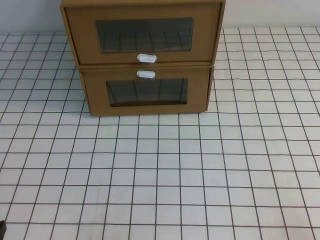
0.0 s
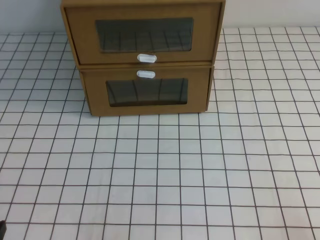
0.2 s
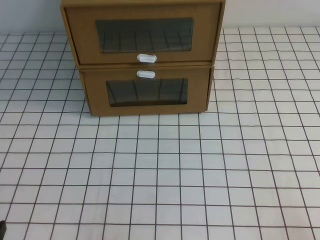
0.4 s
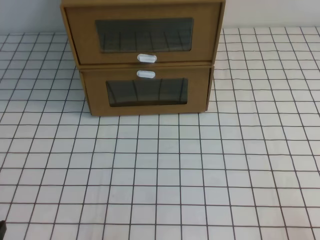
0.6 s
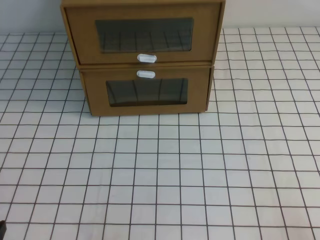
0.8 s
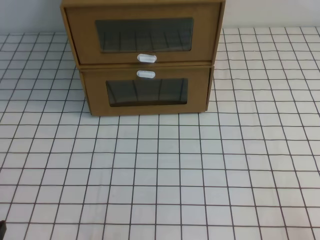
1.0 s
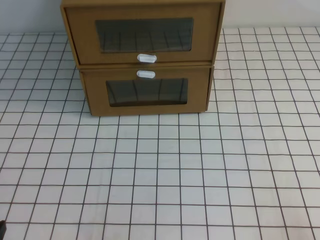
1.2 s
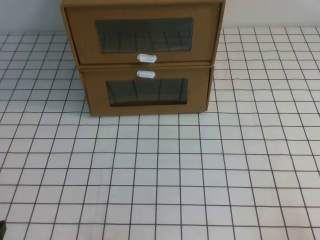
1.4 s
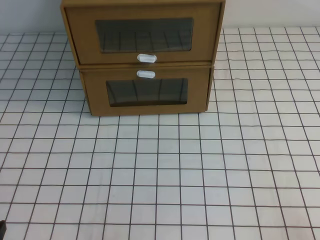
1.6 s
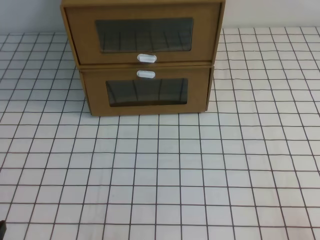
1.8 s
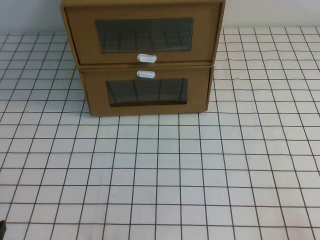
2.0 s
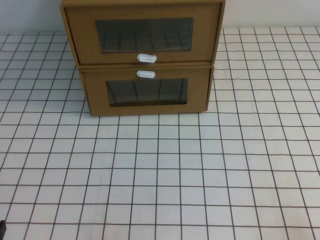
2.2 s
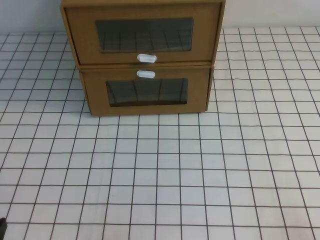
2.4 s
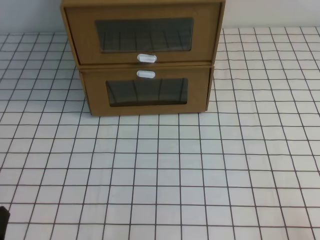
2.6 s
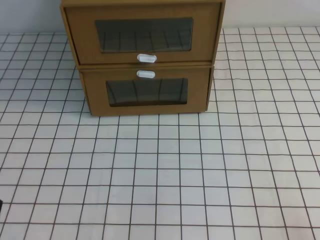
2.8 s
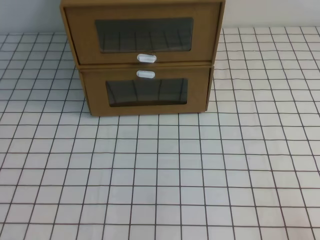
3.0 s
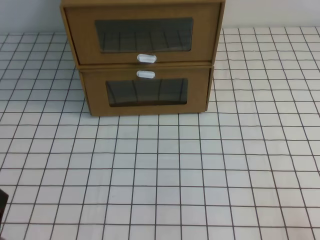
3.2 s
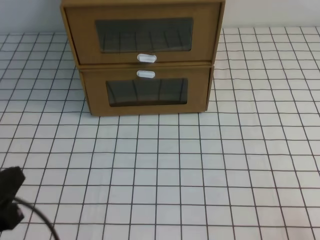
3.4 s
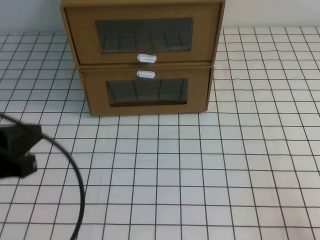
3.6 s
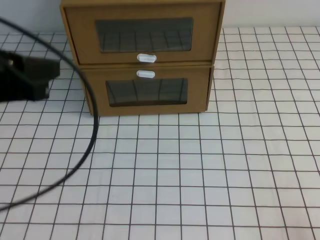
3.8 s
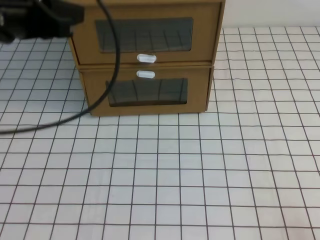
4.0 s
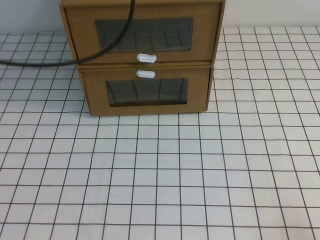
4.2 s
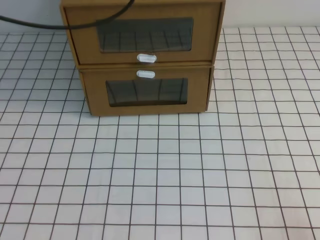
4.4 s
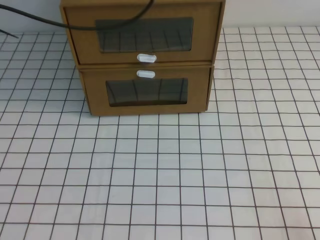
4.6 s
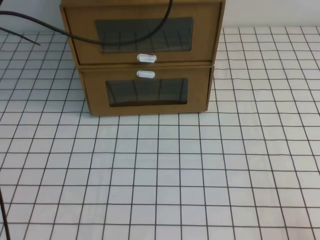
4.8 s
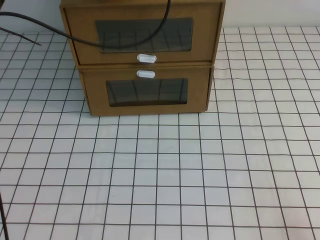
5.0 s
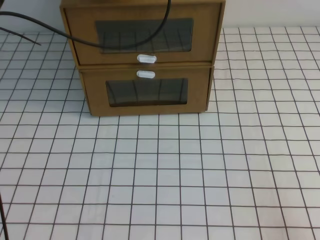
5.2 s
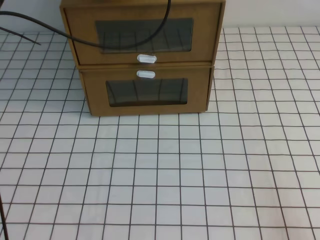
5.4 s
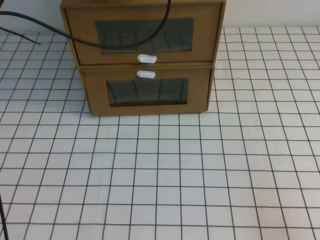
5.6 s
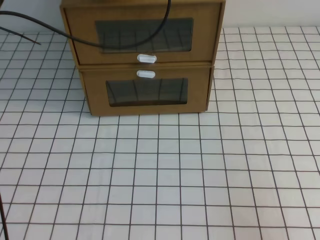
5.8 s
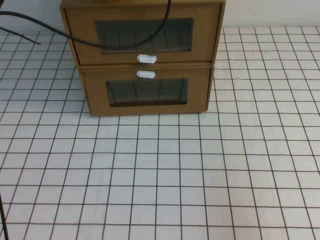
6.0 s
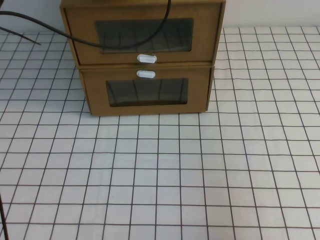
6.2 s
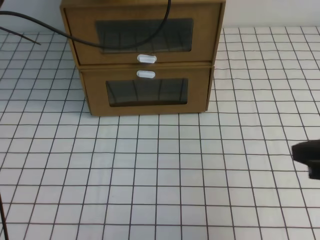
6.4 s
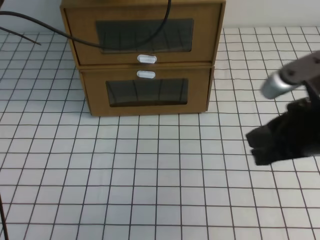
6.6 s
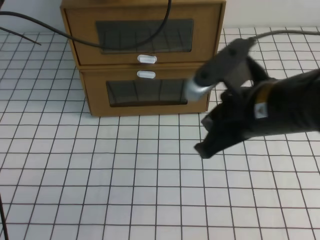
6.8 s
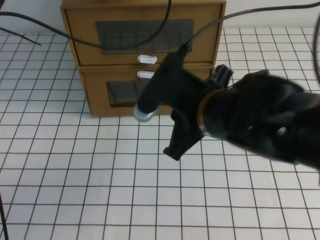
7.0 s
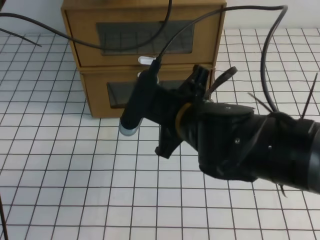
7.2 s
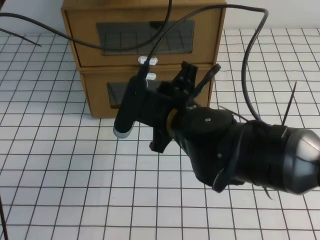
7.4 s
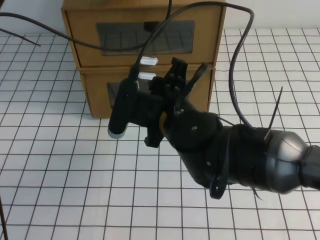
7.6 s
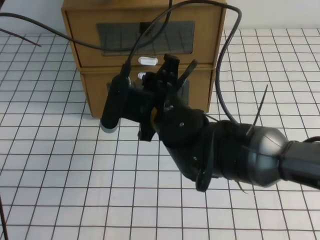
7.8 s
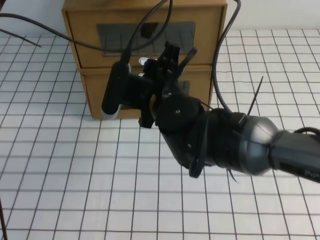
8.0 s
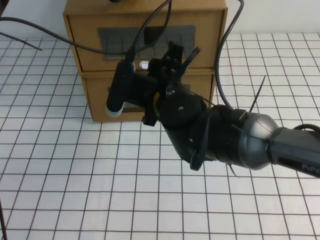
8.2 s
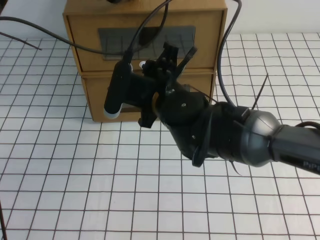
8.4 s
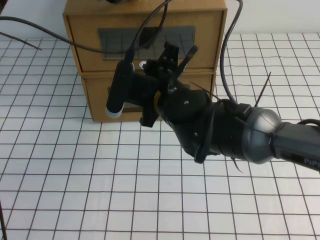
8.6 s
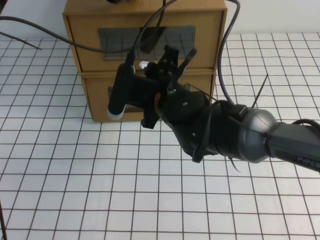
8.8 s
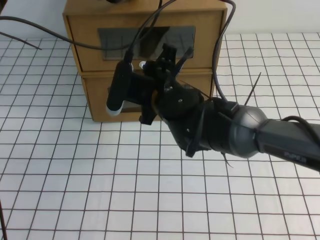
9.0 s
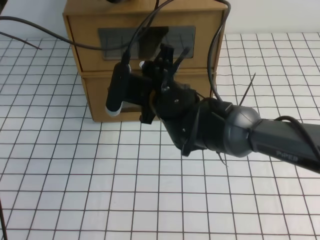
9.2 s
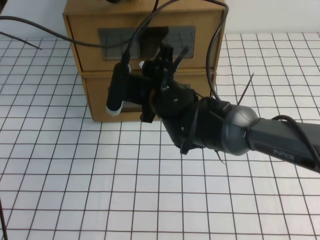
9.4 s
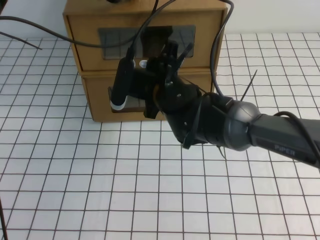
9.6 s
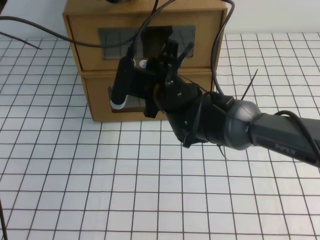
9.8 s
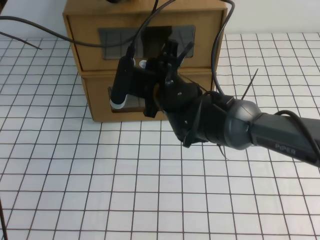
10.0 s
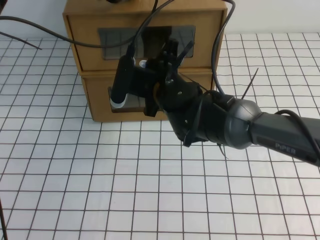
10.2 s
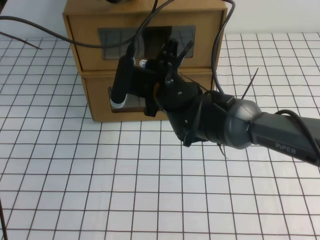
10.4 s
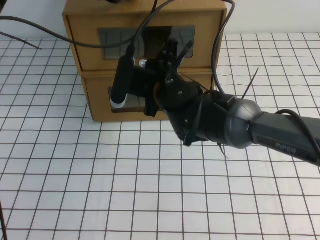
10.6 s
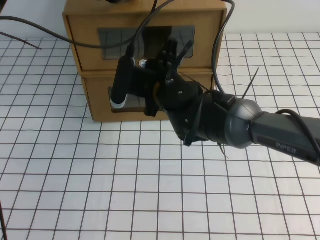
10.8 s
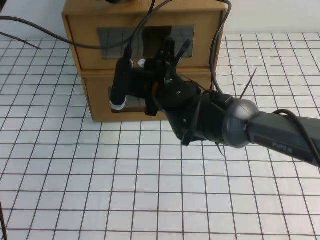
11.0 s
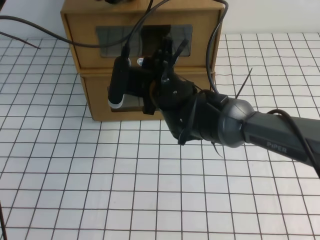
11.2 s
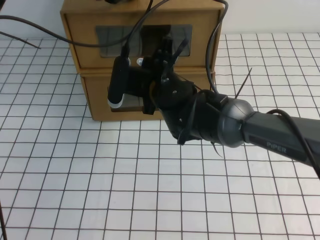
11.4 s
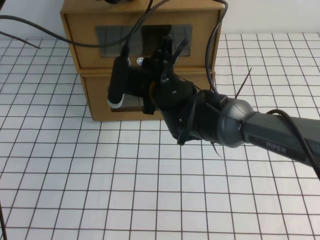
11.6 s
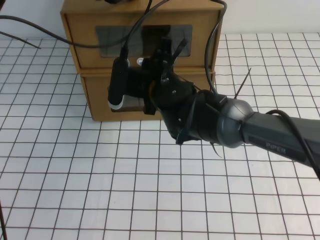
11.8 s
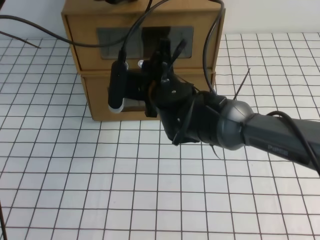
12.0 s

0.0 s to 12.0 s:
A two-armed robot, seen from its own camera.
Task of the whole recording: open the shoebox on the white tablecloth.
0.0 to 1.6 s: Both grippers stay put.
4.4 to 6.0 s: The left gripper travels forward and downward by approximately 10 cm; the right gripper heads upward, covering approximately 10 cm.
6.0 to 7.6 s: The right gripper goes roughly 30 cm to the left and forward, and opens its fingers.
7.6 to 9.0 s: The right gripper travels forward by approximately 5 cm.
9.0 to 10.4 s: The right gripper closes.
10.4 to 12.0 s: There are only small adjustments of the grippers.

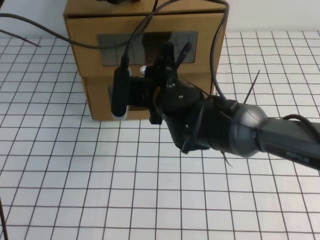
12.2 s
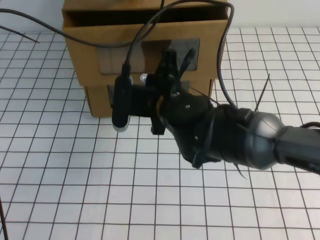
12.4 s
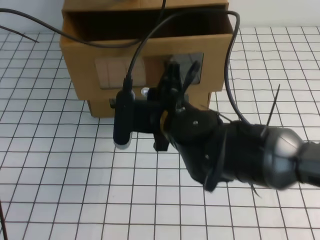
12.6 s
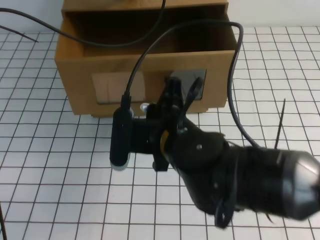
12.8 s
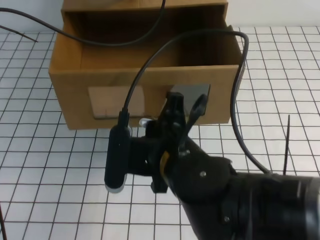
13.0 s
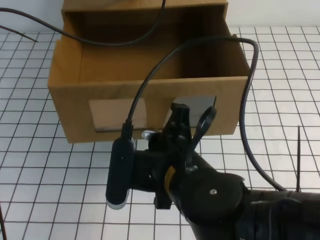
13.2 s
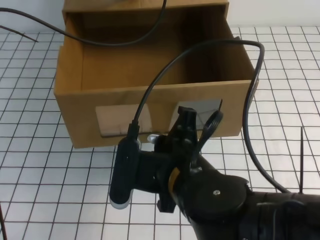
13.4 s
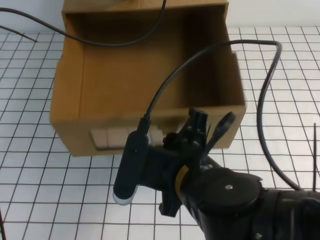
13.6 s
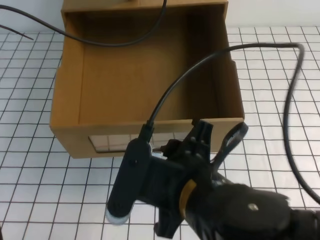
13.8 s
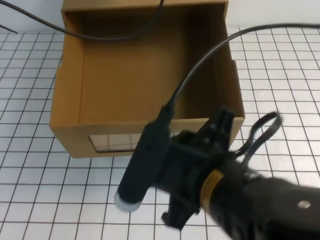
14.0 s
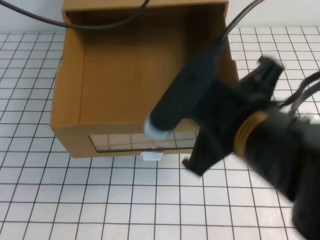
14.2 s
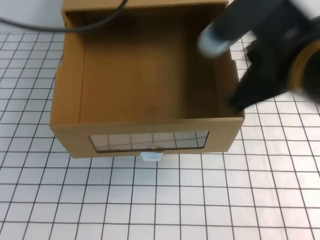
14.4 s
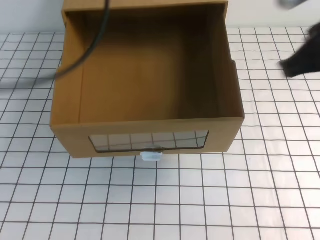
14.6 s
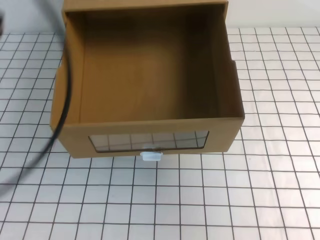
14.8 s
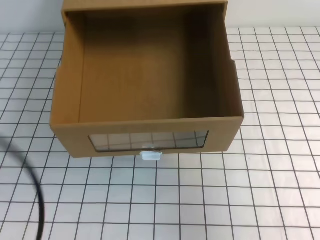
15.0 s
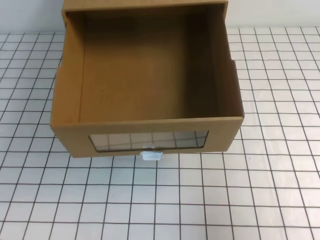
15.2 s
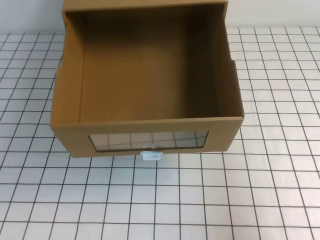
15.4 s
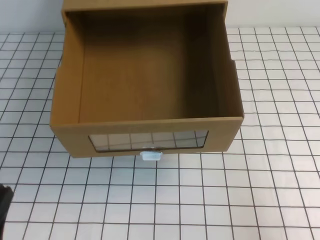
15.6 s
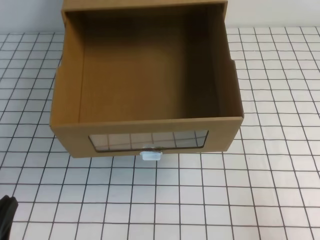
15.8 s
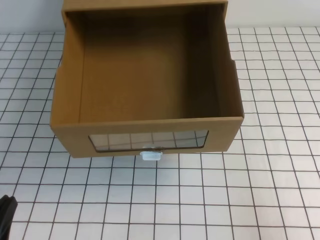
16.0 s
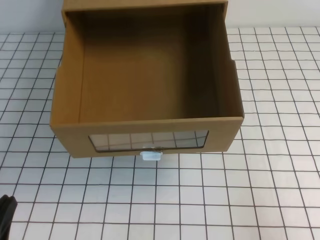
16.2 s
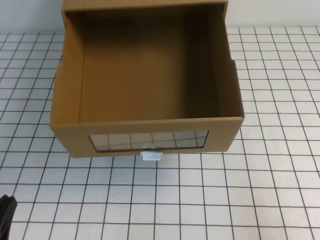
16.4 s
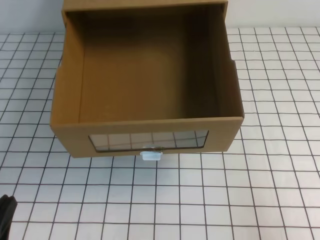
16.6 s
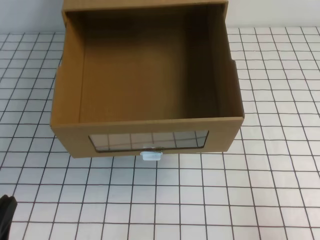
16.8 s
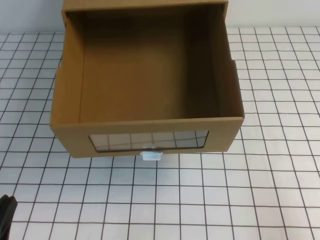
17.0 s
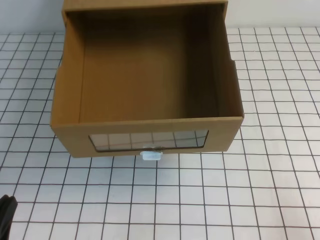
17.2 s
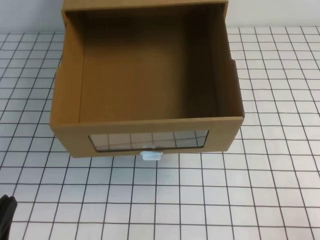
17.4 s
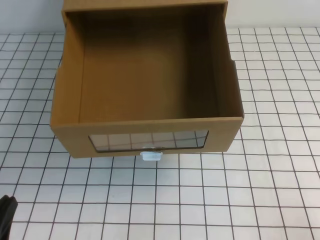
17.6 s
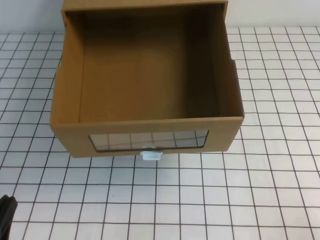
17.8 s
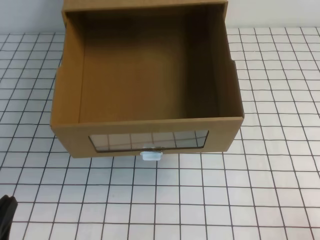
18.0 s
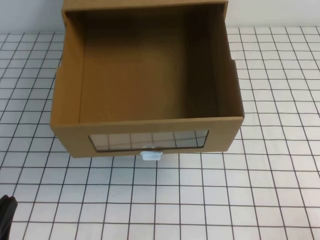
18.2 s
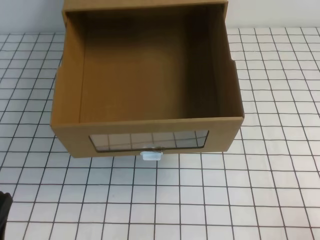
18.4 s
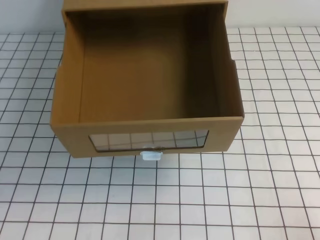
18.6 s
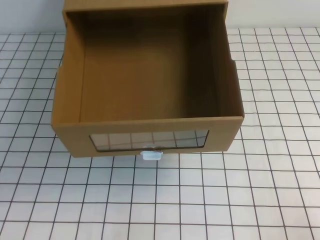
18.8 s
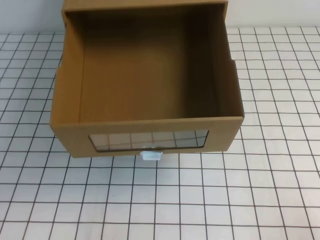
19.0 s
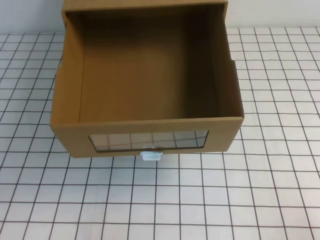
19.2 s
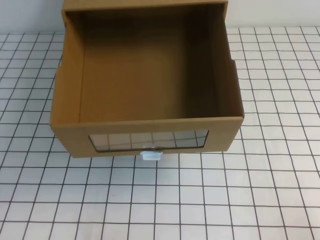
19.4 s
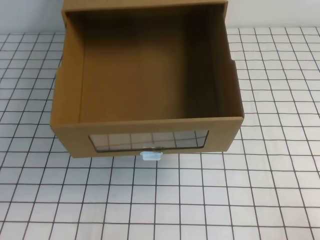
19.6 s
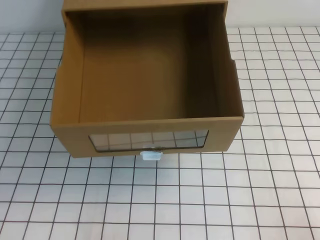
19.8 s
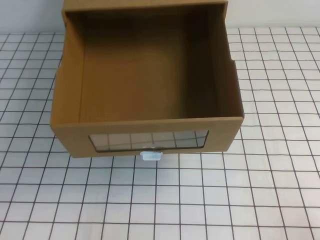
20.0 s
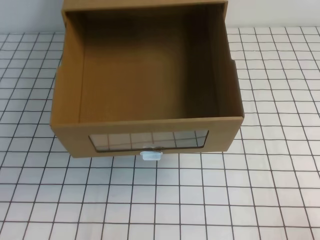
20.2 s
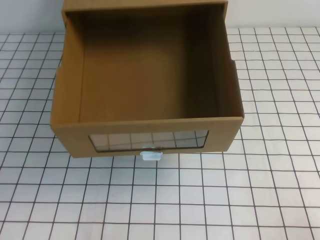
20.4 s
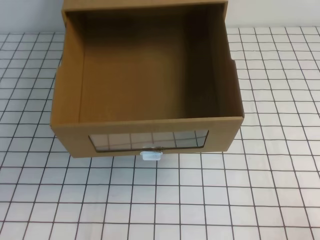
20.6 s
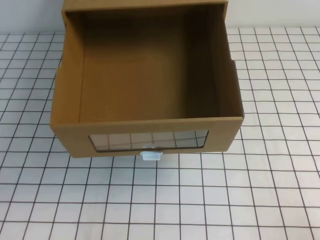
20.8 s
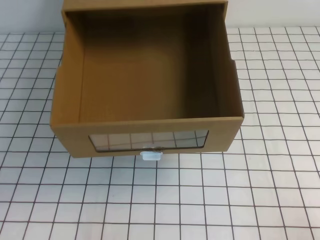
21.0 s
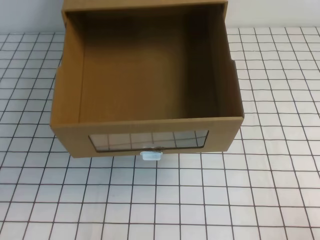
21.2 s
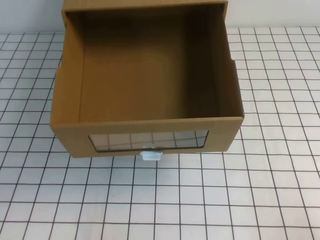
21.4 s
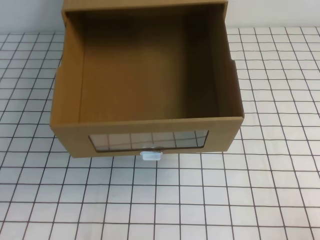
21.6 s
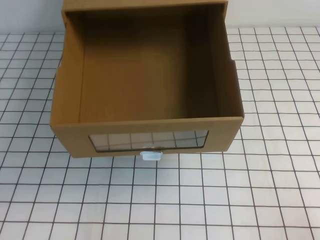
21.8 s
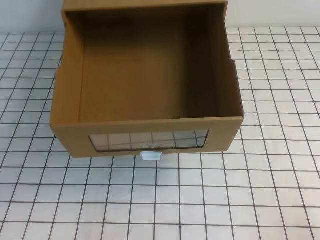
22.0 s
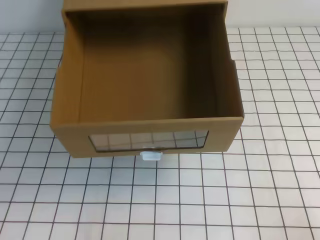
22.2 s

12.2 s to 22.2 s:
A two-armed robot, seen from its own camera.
Task of the whole recording: open the shoebox on the white tablecloth.
Step, 12.2 to 22.2 s: Open the shoe box.
12.2 to 13.6 s: The right gripper goes roughly 15 cm backward, and opens.
13.6 to 15.0 s: The left gripper moves backward, some 30 cm. The right gripper travels to the right and upward by roughly 25 cm, and closes up.
15.0 to 16.4 s: The right gripper is displaced backward and downward by approximately 20 cm, while the left gripper travels downward by about 25 cm.
19.4 to 22.2 s: Neither gripper changes place.
